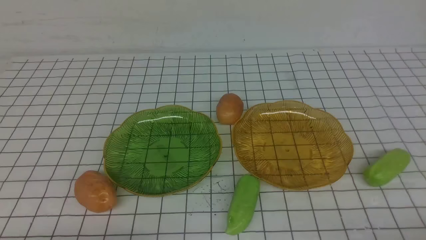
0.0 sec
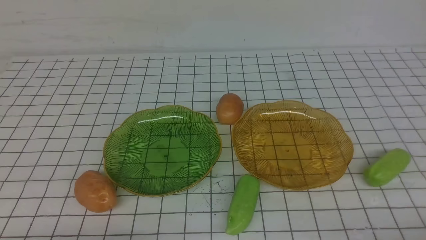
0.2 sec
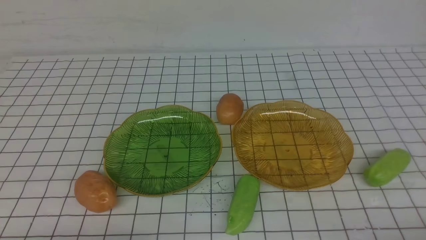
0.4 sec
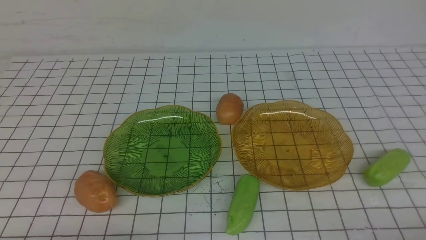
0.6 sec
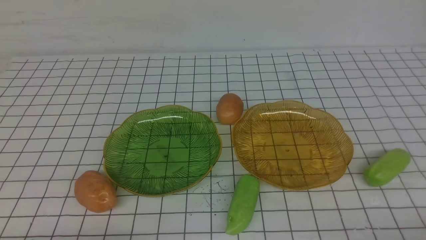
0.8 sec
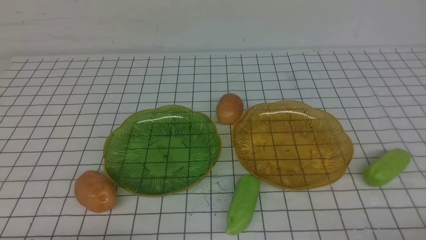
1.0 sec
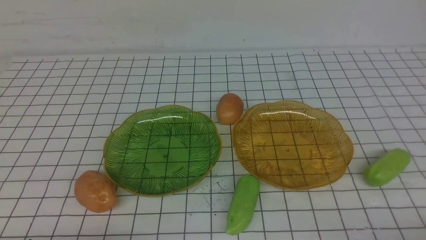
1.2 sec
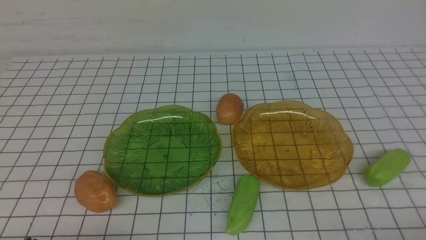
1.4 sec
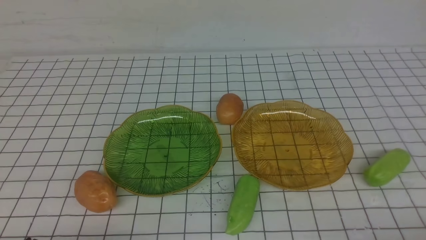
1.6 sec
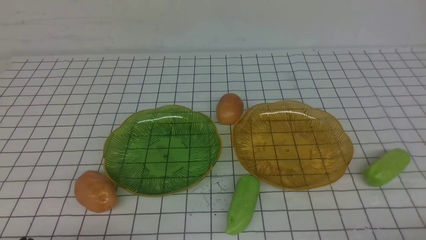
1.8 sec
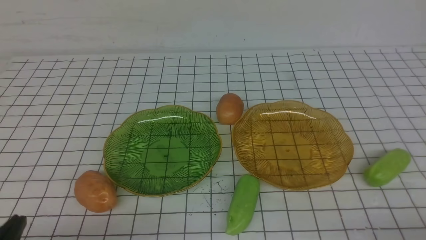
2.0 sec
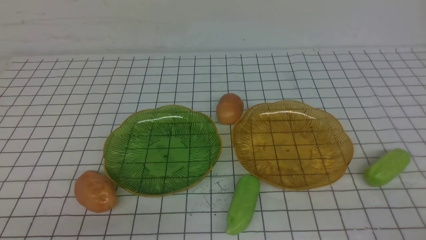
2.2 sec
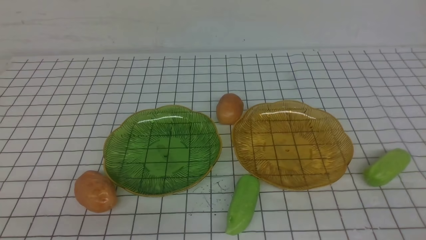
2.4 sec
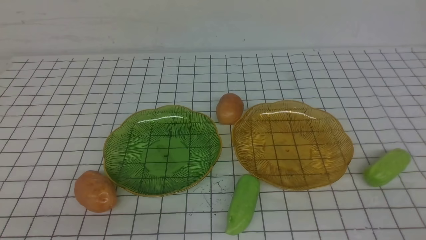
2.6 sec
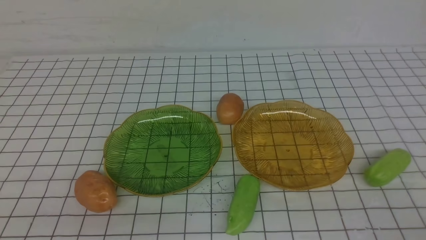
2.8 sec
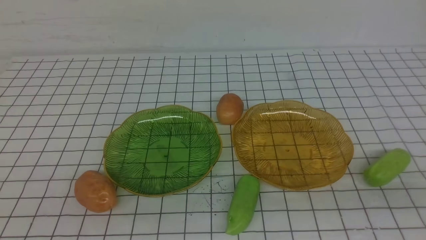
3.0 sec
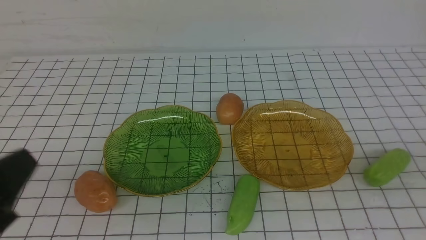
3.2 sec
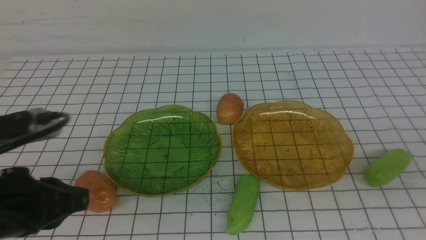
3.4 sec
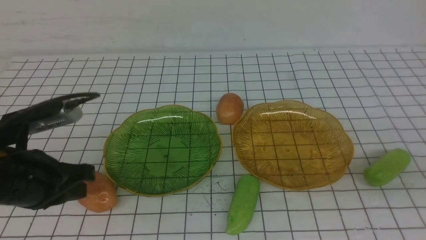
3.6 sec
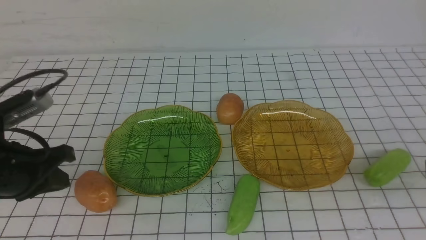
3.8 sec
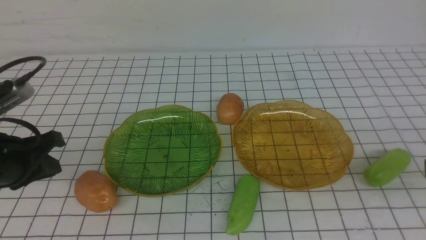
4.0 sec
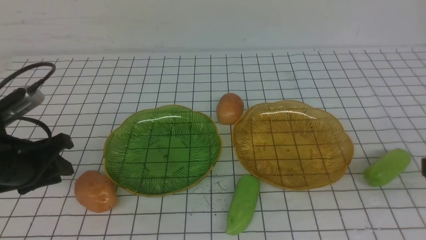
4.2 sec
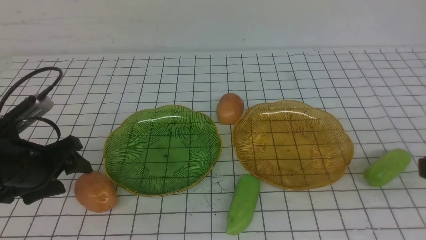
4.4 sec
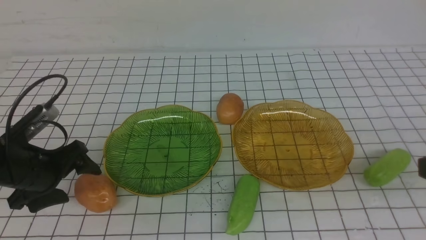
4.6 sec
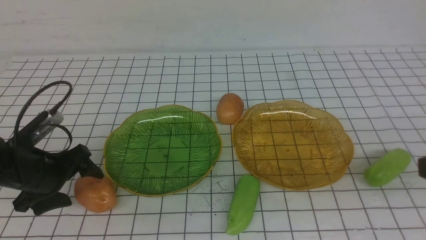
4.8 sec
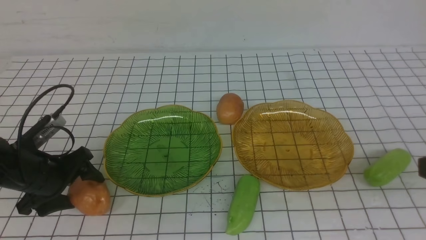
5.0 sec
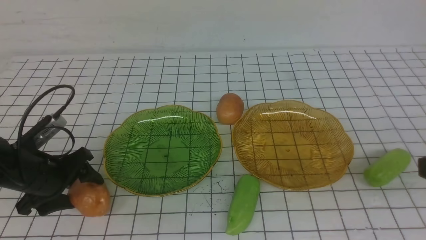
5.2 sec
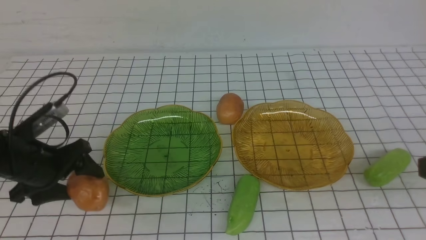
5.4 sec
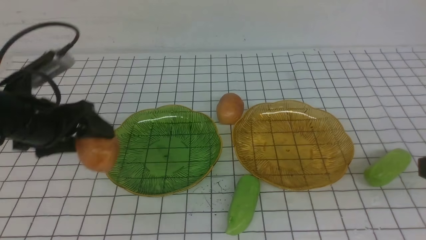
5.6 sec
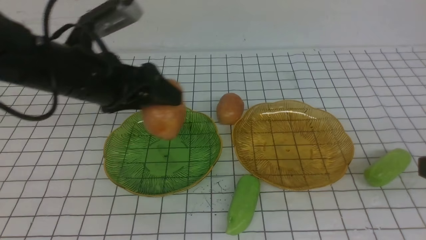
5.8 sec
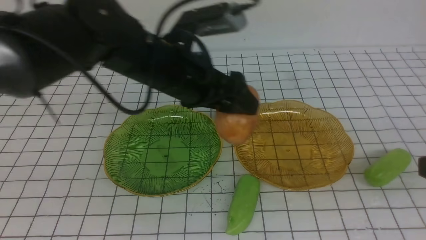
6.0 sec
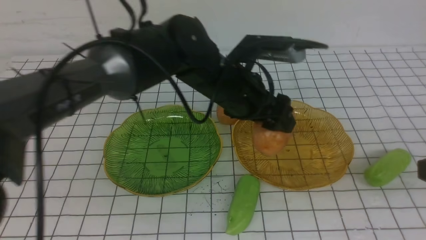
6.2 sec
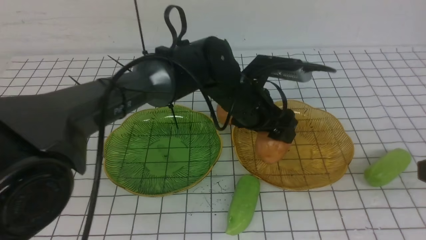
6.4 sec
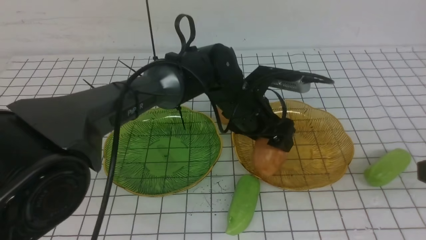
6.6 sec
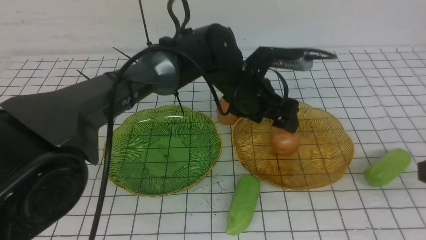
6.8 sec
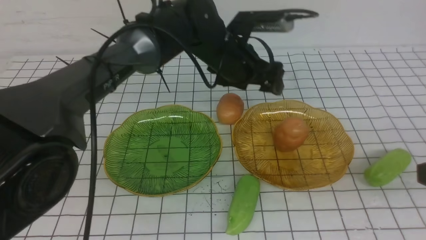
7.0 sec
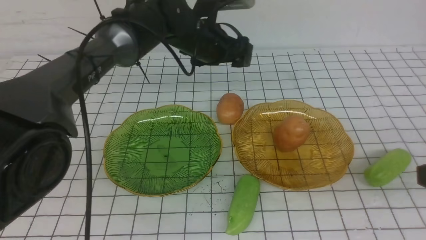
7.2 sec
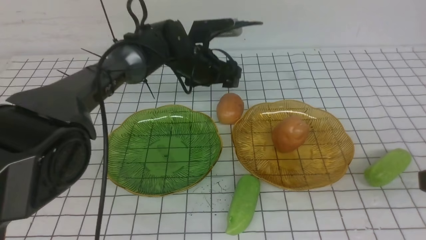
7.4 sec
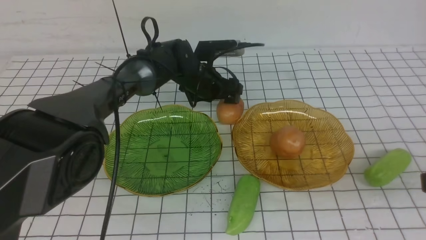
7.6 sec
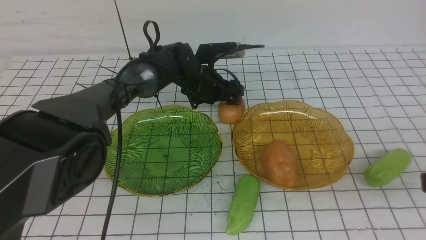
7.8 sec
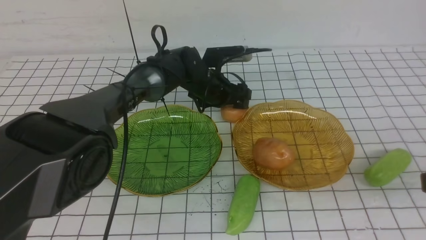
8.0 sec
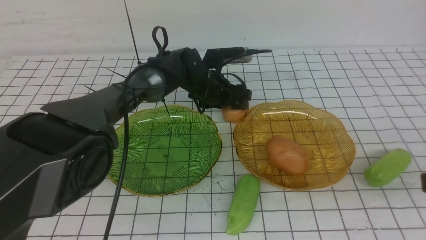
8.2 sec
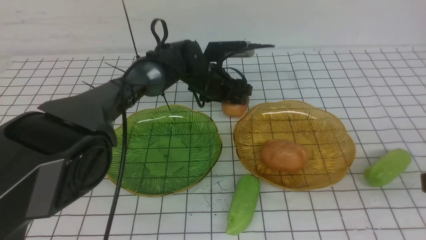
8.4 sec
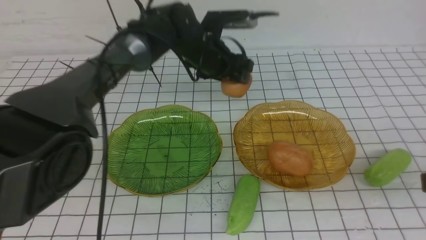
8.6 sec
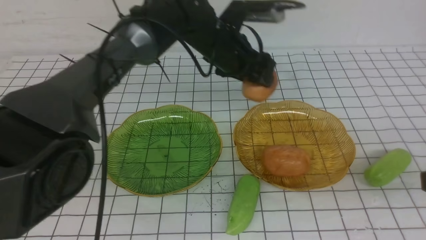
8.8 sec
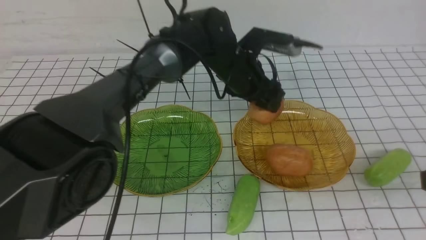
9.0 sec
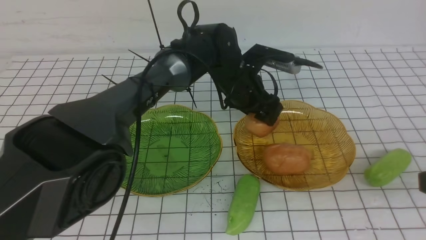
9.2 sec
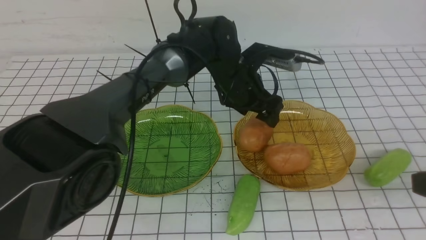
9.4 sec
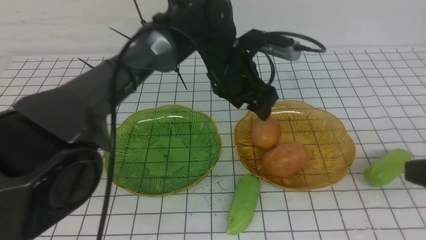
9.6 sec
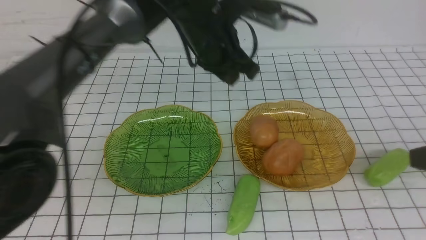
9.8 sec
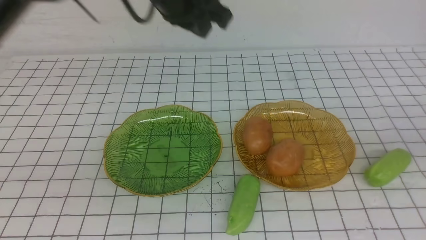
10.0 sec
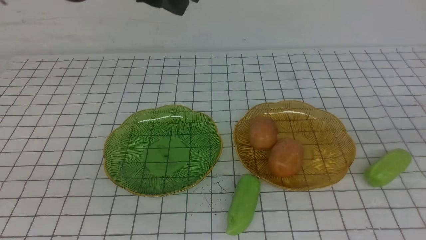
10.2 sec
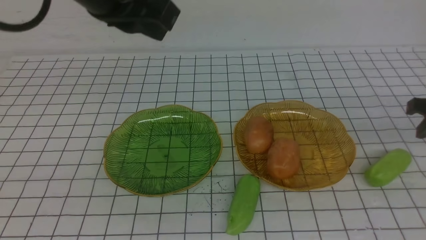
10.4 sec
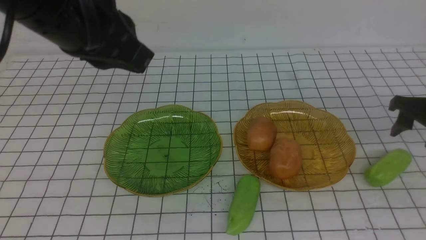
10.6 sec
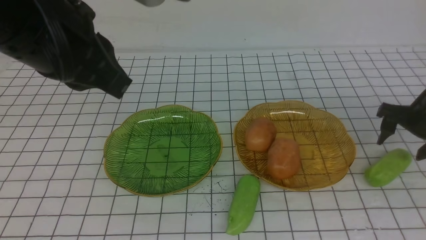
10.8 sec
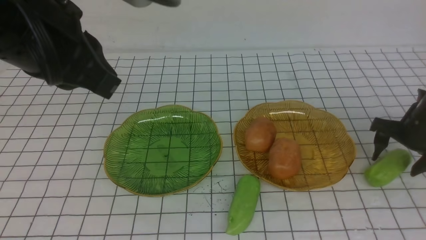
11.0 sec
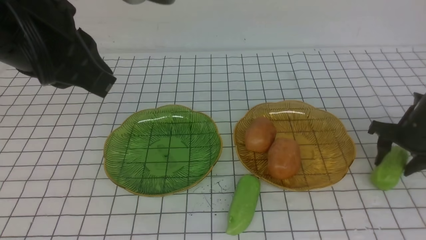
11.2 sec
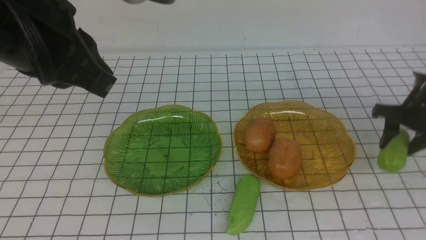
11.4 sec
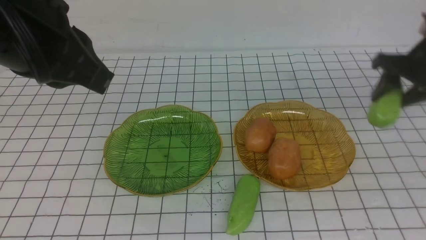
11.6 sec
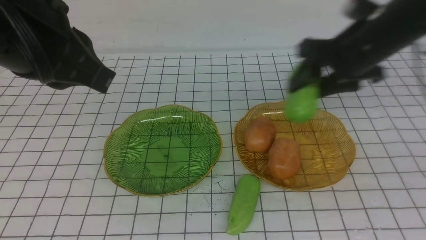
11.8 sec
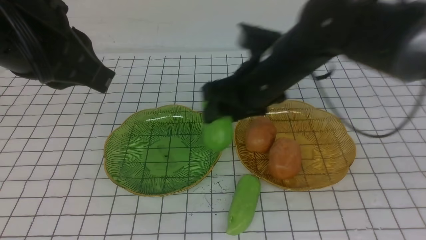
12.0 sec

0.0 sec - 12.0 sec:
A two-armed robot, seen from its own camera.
Step, 0.0 sec - 6.6 sec: Grab a potato with your left arm and put it on the right plate.
Step, 6.8 sec - 9.4 sec: Grab a potato with your left arm and put it on the right plate.
3.0 sec - 4.4 sec: The left gripper shifts some 20 cm forward, and opens its fingers.
4.4 sec - 6.0 sec: The left gripper is displaced to the right and upward by roughly 25 cm.
6.0 sec - 7.6 sec: The left gripper heads forward and downward, covering roughly 20 cm.
7.6 sec - 9.0 sec: The left gripper heads to the right, upward and backward, covering about 10 cm.
9.0 sec - 10.4 sec: The left gripper goes approximately 30 cm upward, backward and to the left, and closes its fingers, while the right gripper is displaced forward by about 20 cm, and opens.
10.4 sec - 12.0 sec: The left gripper travels backward by some 5 cm, while the right gripper moves to the left, about 25 cm.

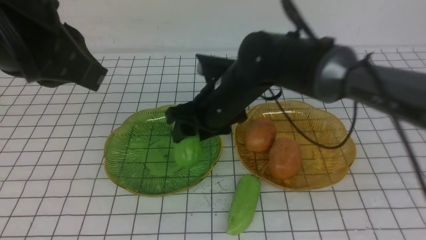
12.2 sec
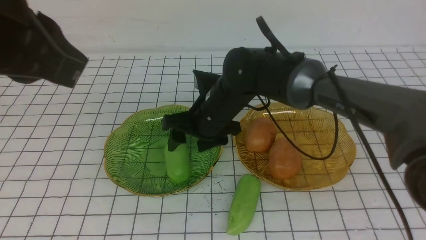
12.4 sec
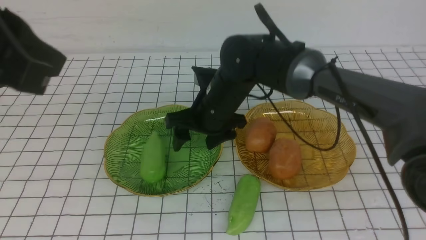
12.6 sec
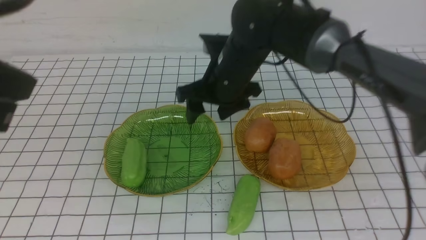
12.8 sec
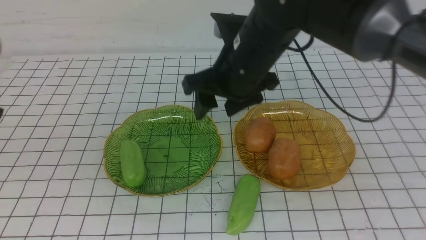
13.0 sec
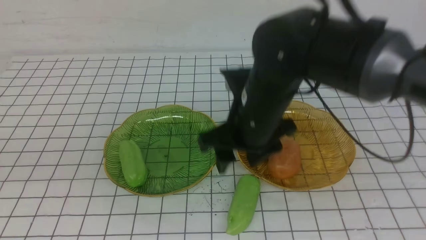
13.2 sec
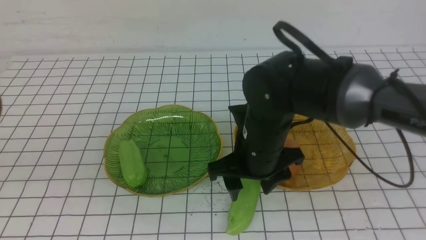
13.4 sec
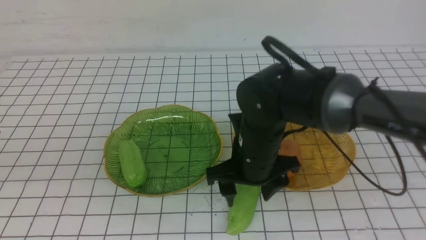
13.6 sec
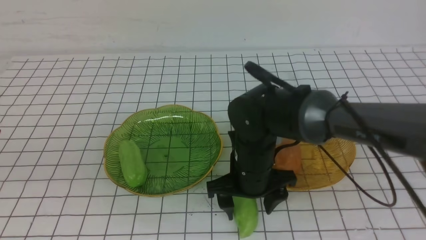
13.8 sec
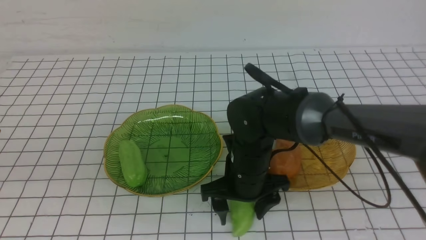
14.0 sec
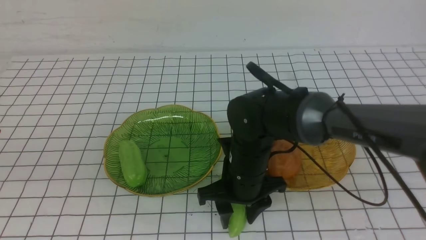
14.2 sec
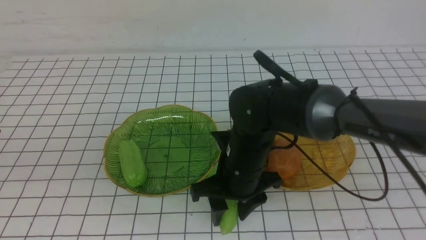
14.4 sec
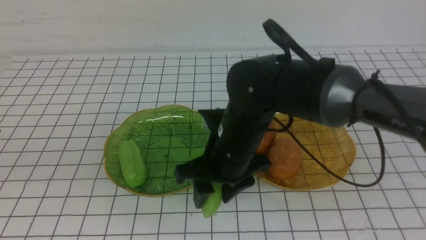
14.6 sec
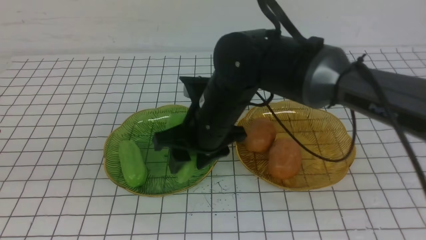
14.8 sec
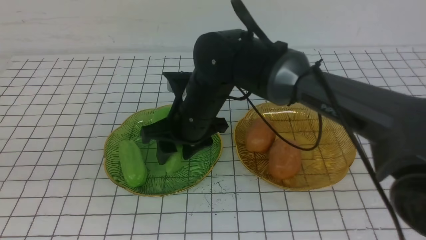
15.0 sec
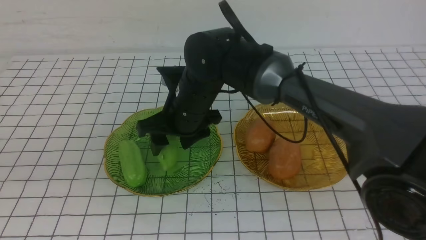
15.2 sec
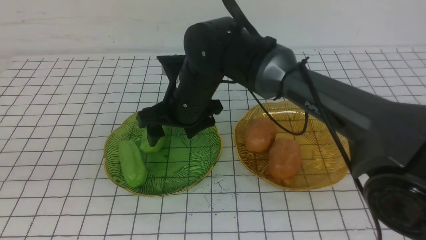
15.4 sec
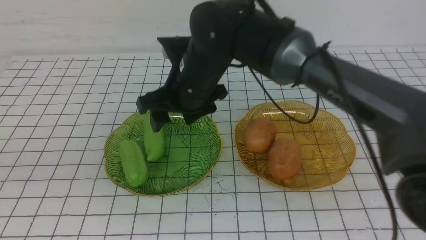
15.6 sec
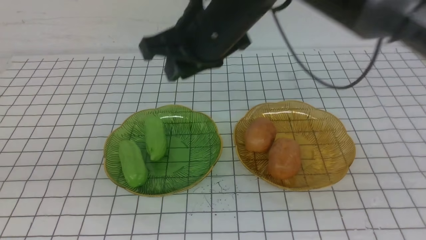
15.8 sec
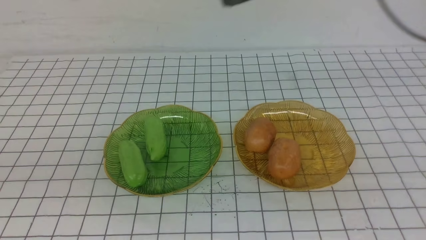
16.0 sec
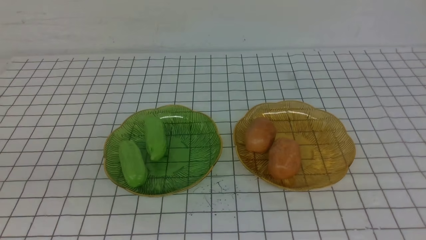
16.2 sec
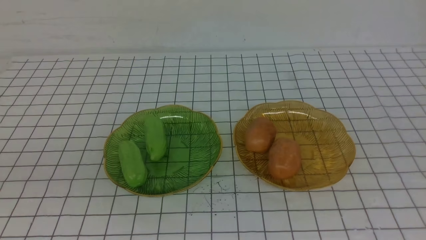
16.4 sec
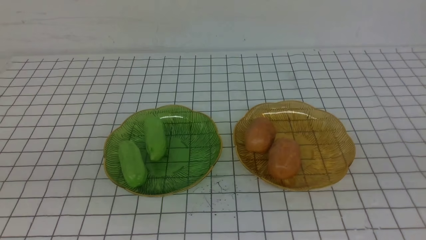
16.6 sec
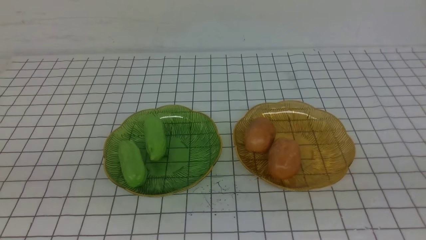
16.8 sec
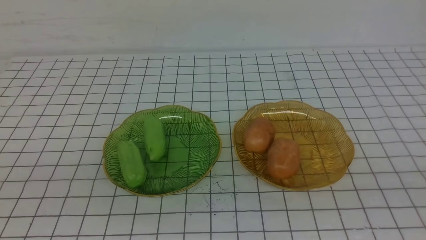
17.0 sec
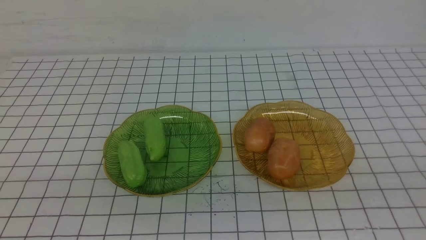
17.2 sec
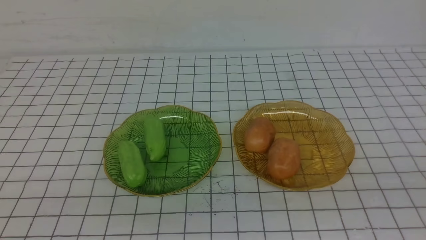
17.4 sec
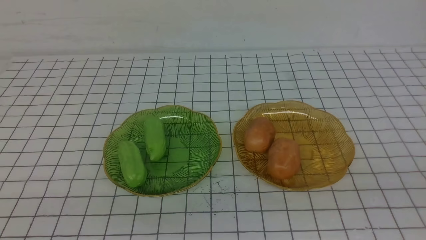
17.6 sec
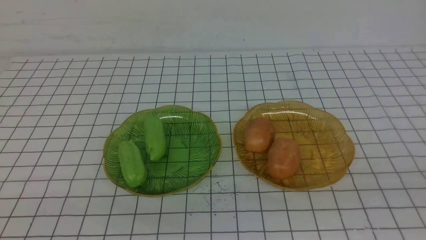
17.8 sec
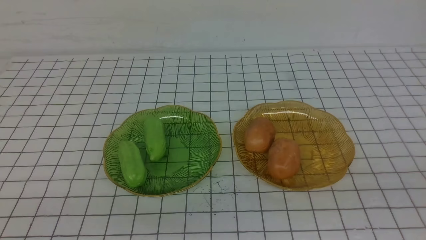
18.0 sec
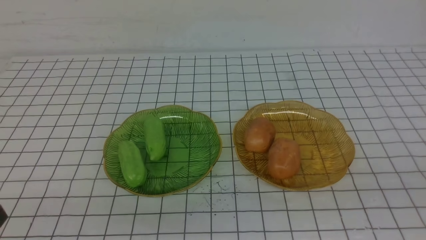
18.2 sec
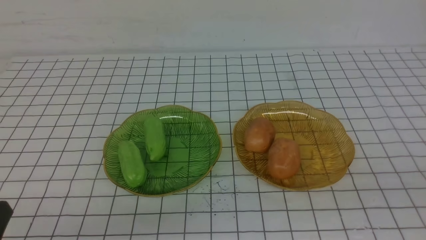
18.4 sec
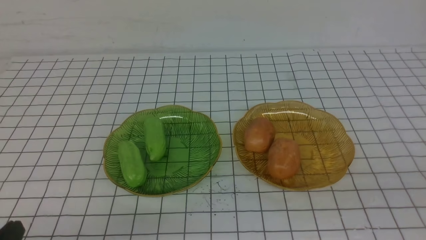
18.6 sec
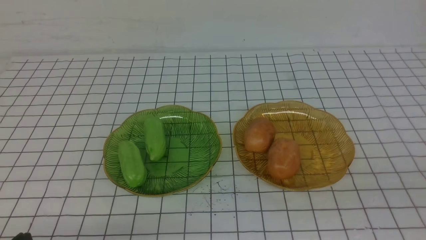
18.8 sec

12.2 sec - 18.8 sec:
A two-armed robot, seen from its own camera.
Step, 12.6 sec - 15.2 sec: use the right arm to grab a chayote and put it into the left plate.
12.2 sec - 13.8 sec: The left gripper travels backward and to the left by approximately 10 cm. The right gripper travels downward and backward by some 10 cm.
13.8 sec - 15.4 sec: The right gripper is displaced upward, to the left and forward by roughly 15 cm.
15.4 sec - 17.2 sec: The right gripper moves to the right and backward, about 50 cm, and closes its fingers. Meanwhile the left gripper moves backward and downward, roughly 10 cm.
